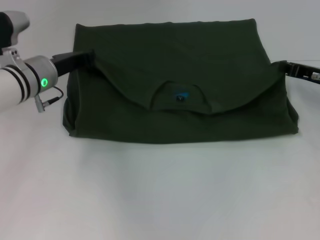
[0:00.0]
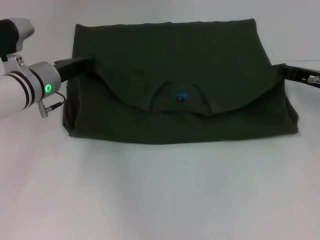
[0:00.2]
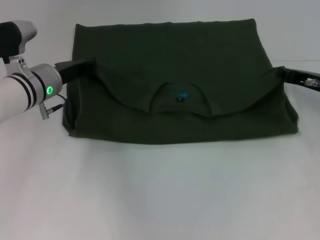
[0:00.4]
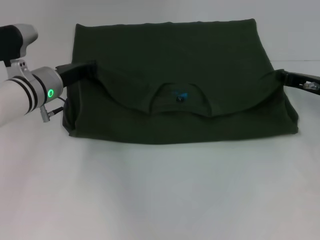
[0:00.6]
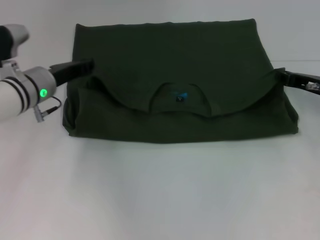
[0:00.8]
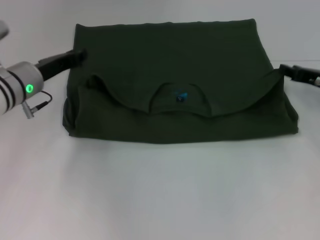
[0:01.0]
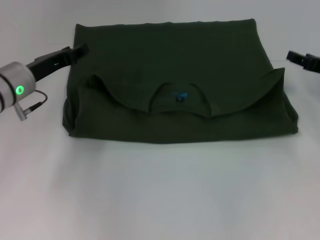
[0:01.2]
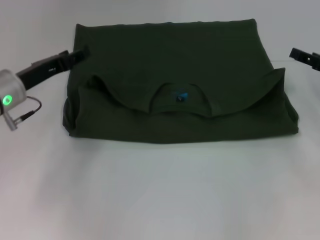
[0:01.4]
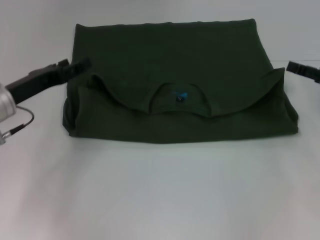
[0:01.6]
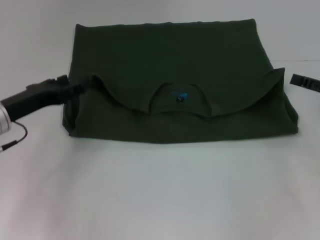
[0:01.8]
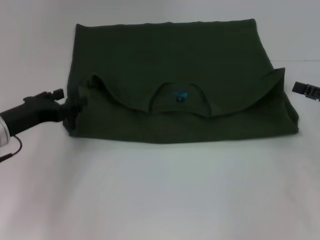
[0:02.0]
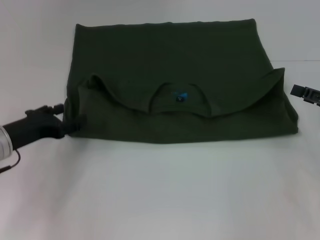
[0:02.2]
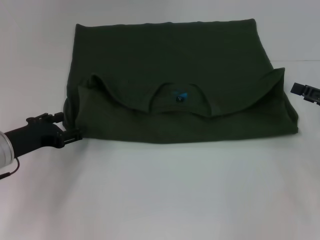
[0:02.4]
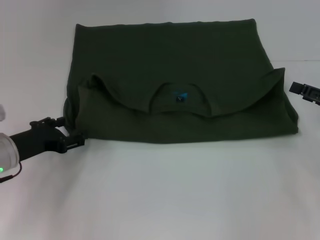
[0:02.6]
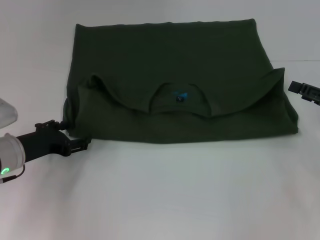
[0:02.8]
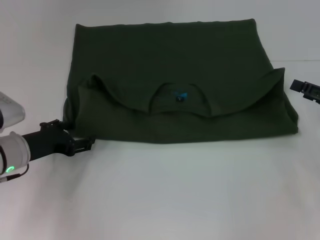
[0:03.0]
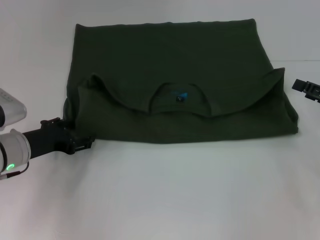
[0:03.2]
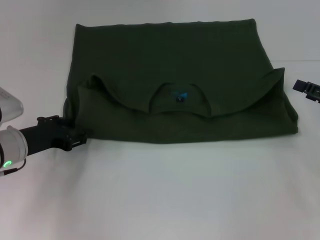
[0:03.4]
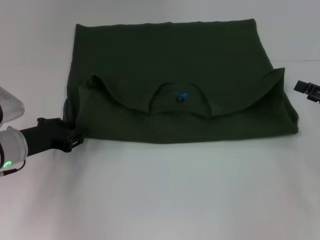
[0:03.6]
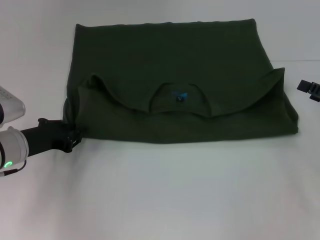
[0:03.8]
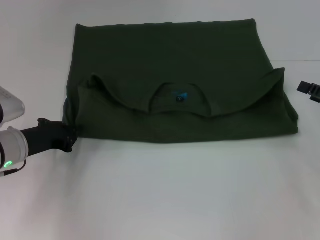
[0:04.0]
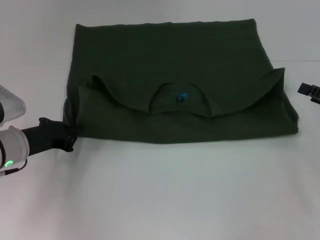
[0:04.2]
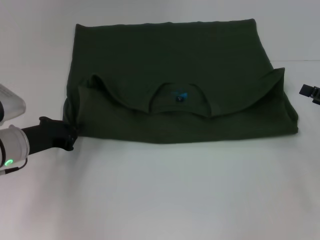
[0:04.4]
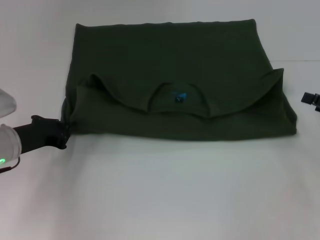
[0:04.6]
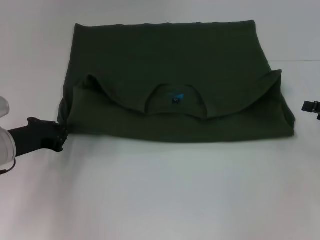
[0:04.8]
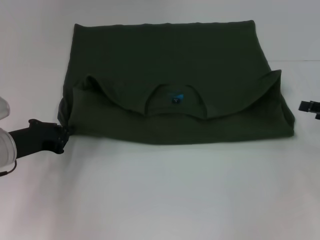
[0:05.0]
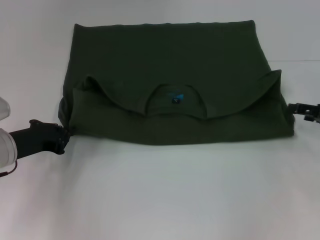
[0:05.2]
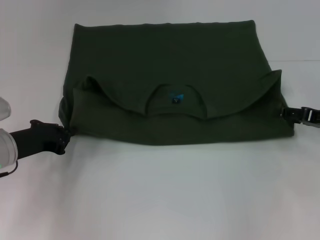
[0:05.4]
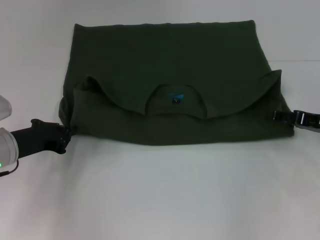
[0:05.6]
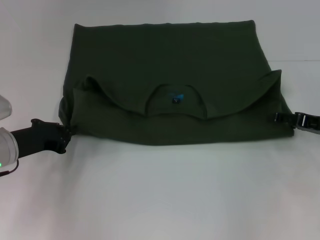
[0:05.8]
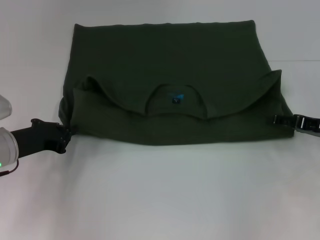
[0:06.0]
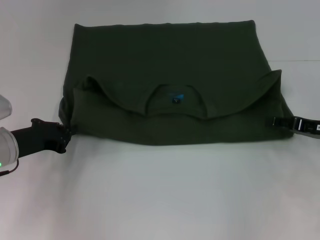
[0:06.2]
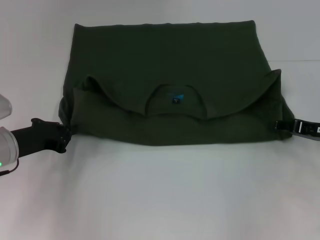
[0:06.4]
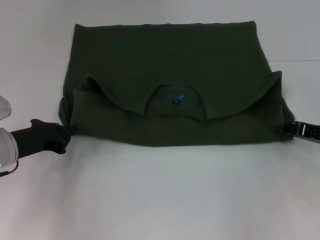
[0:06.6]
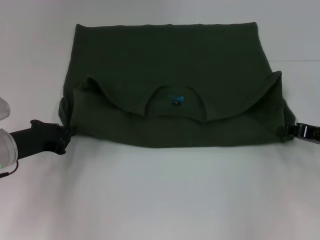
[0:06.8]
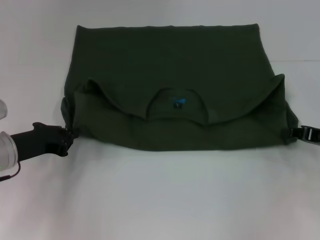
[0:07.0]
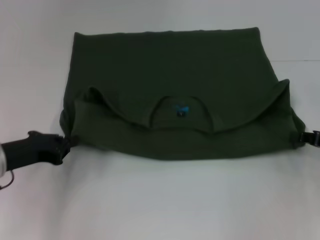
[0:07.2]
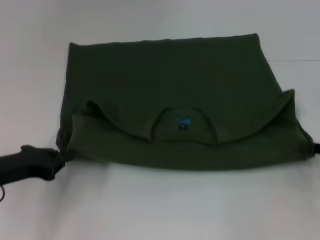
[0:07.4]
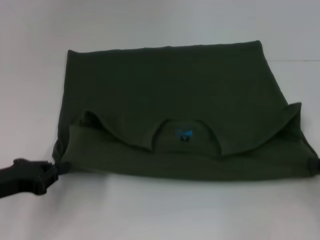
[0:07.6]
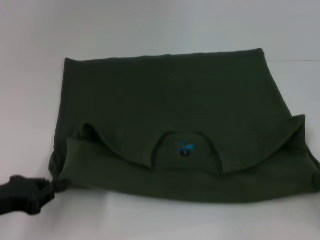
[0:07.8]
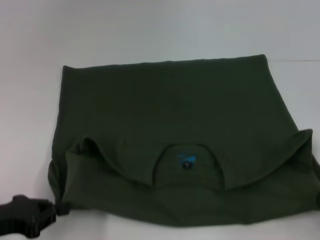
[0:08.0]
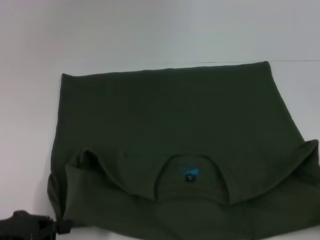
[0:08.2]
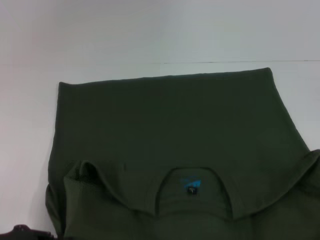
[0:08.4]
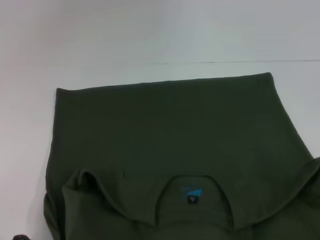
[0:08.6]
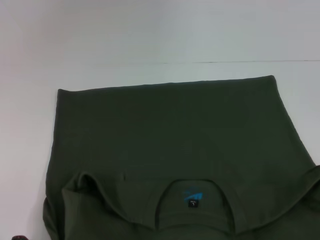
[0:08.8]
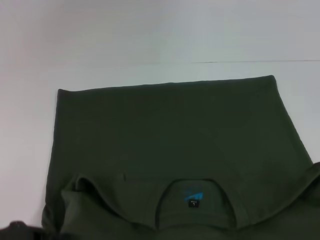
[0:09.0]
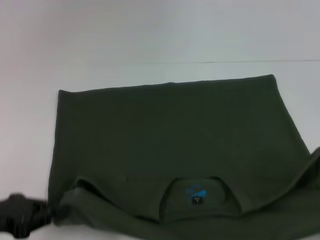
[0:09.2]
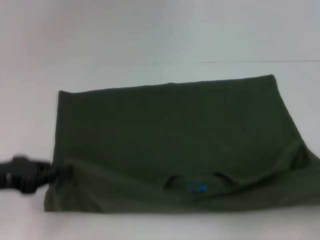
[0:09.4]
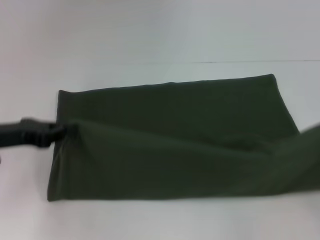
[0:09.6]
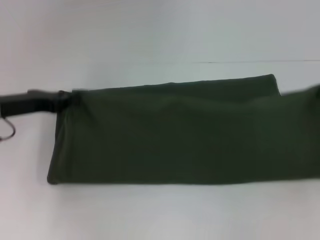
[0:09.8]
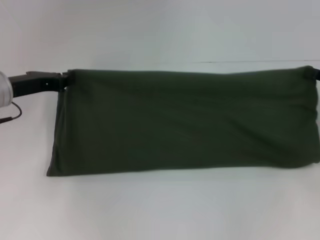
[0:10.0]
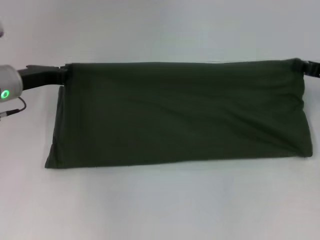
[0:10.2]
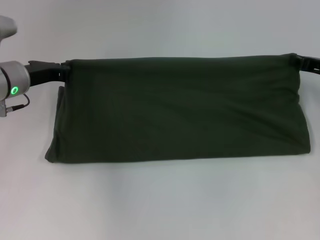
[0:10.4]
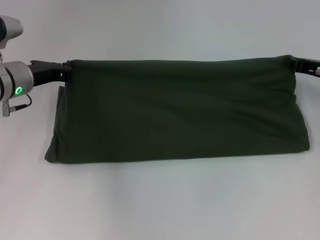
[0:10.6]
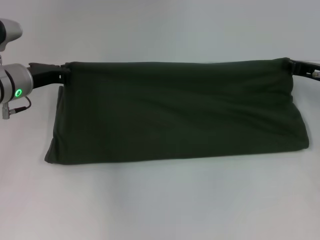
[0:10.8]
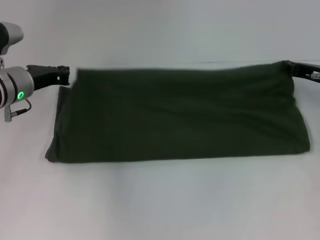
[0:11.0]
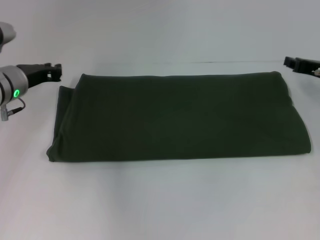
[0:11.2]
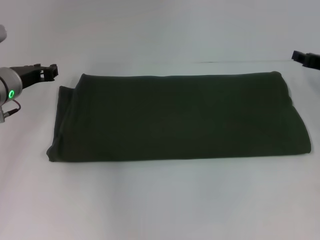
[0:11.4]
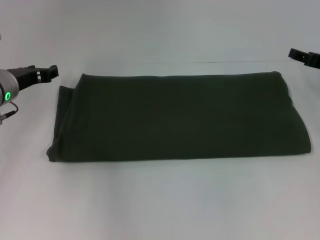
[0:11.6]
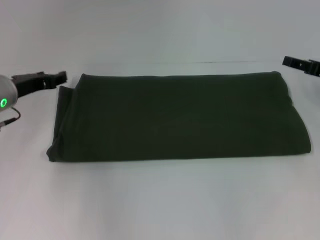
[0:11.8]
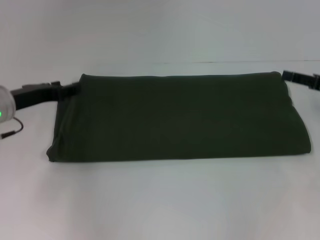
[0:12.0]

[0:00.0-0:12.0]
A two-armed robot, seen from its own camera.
Step, 0:01.2 to 0:08.6: Pull the clothes with your left hand.
Step, 0:01.2 to 0:08.6: Pull the clothes with your right hand.
Step, 0:08.8 to 0:11.2: Fold the clothes with your right hand.
0:00.0 to 0:01.6: The left gripper is displaced backward and to the left by approximately 10 cm, and opens up. Meanwhile the right gripper travels backward by approximately 5 cm, and opens its fingers.
0:01.6 to 0:03.0: The left gripper shifts some 5 cm downward.
0:03.0 to 0:04.4: The left gripper closes its fingers.
0:04.4 to 0:06.0: The right gripper moves about 5 cm.
0:06.0 to 0:07.6: The right gripper moves backward and to the right, about 10 cm, and closes up. Meanwhile the left gripper moves backward, some 10 cm.
0:07.6 to 0:09.0: The right gripper travels backward by some 15 cm. Meanwhile the left gripper is displaced backward by roughly 5 cm.
0:09.0 to 0:10.4: The two grippers go approximately 25 cm forward.
0:10.4 to 0:12.0: The right gripper ends up roughly 5 cm from where it was, and opens its fingers, while the left gripper ends up about 5 cm from where it was, and opens.

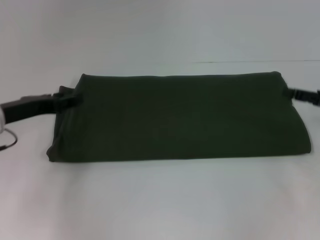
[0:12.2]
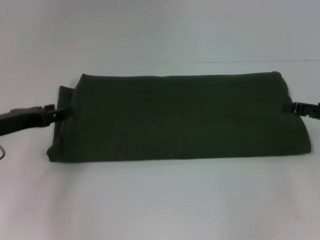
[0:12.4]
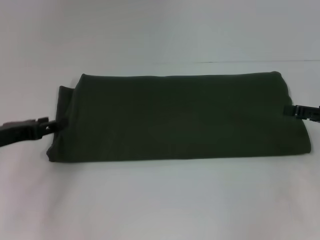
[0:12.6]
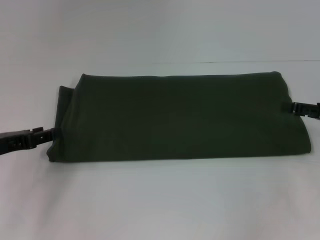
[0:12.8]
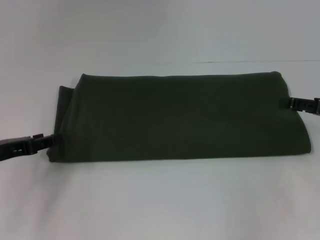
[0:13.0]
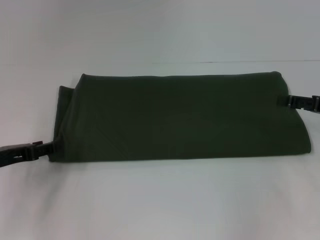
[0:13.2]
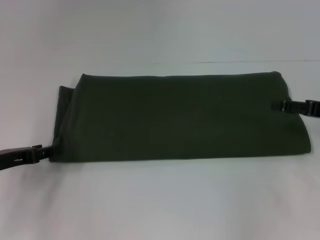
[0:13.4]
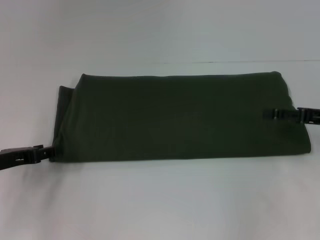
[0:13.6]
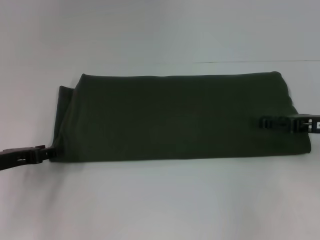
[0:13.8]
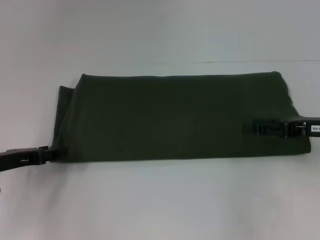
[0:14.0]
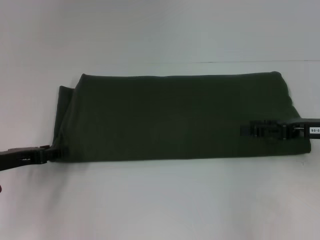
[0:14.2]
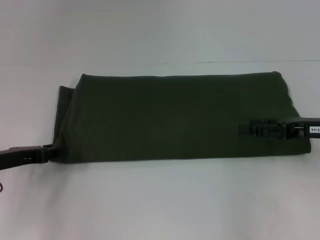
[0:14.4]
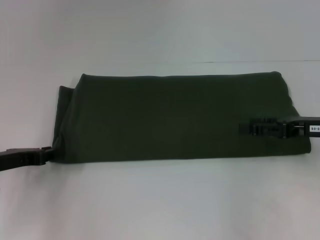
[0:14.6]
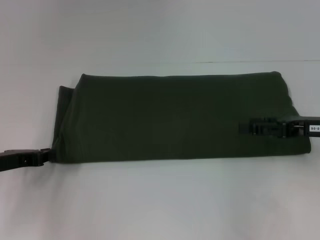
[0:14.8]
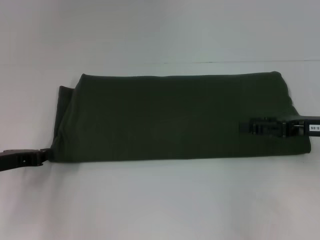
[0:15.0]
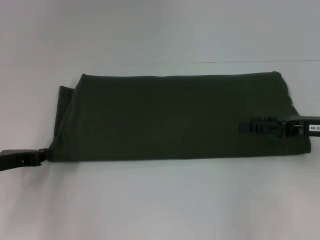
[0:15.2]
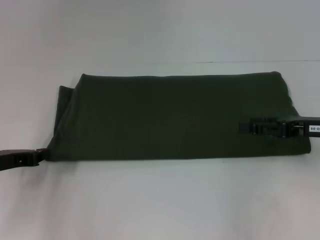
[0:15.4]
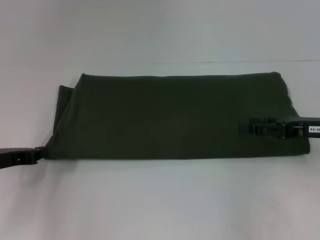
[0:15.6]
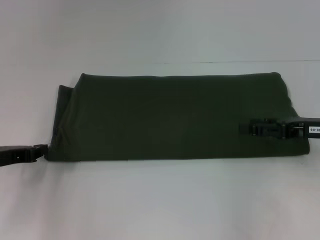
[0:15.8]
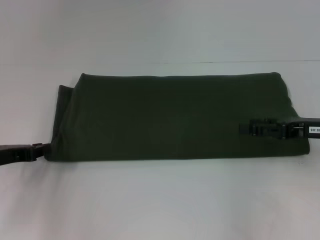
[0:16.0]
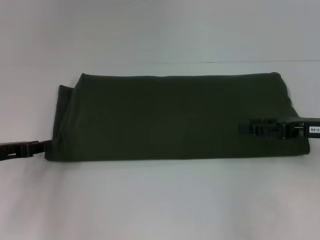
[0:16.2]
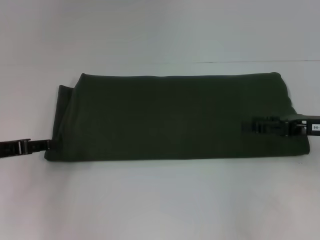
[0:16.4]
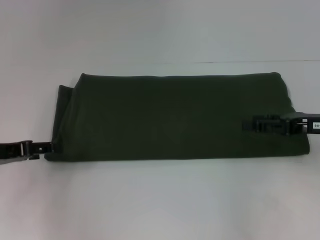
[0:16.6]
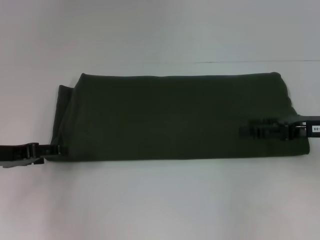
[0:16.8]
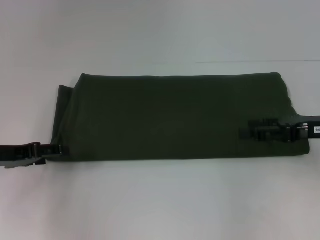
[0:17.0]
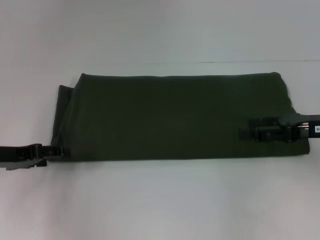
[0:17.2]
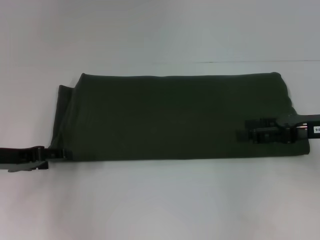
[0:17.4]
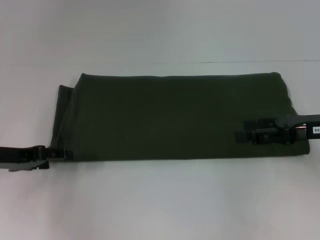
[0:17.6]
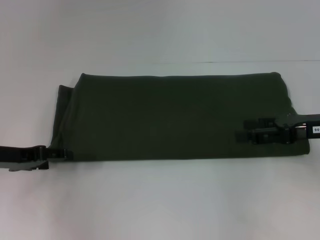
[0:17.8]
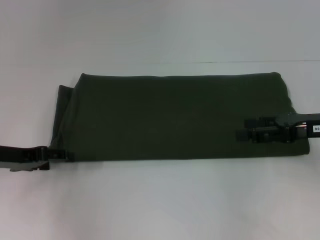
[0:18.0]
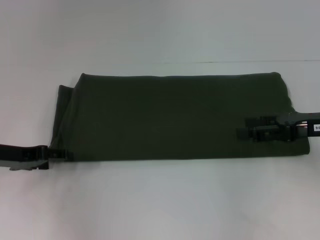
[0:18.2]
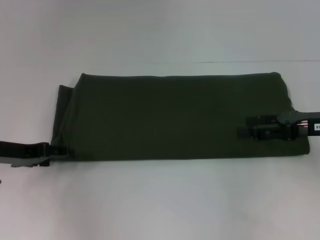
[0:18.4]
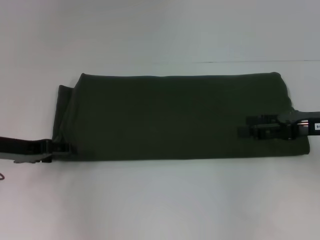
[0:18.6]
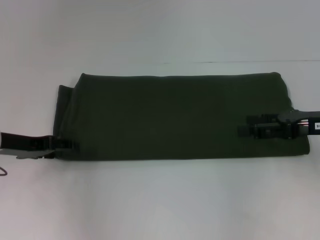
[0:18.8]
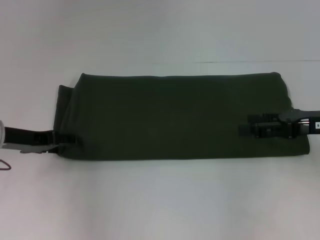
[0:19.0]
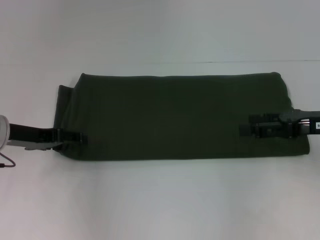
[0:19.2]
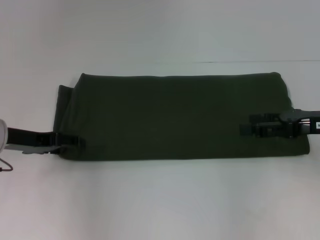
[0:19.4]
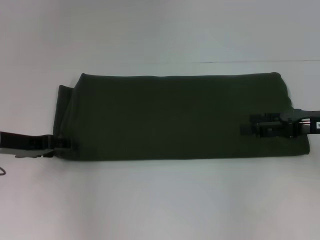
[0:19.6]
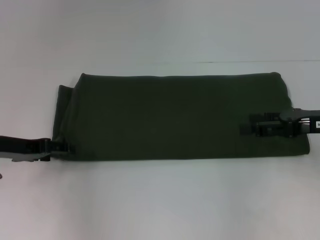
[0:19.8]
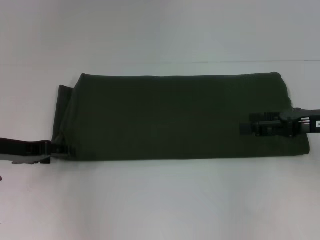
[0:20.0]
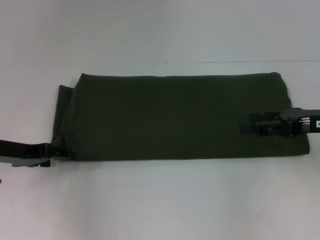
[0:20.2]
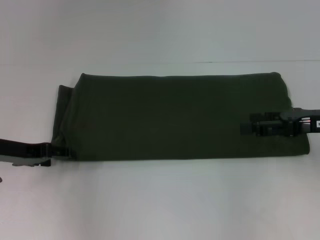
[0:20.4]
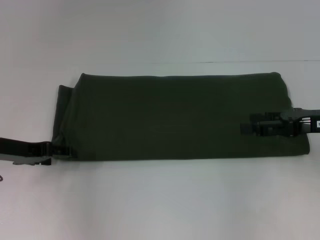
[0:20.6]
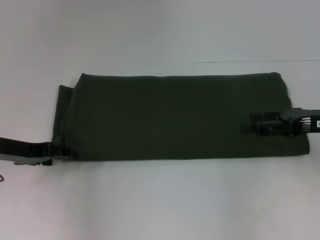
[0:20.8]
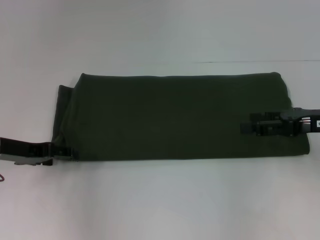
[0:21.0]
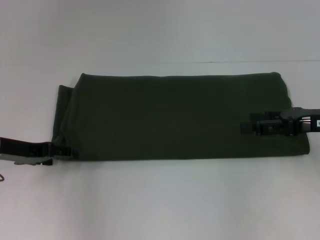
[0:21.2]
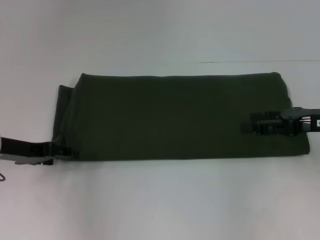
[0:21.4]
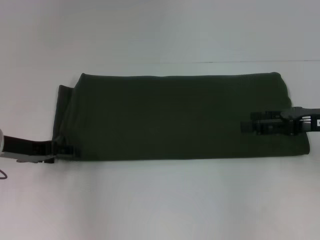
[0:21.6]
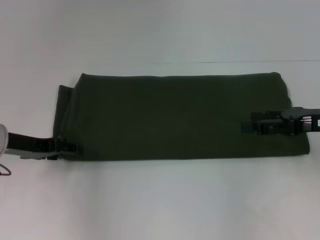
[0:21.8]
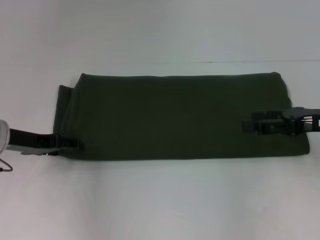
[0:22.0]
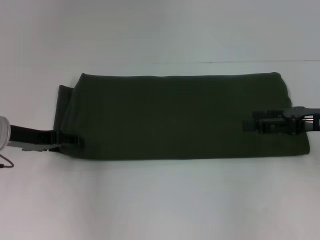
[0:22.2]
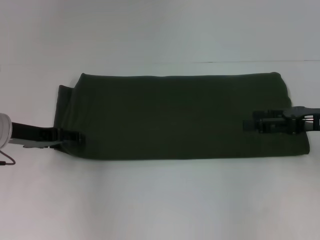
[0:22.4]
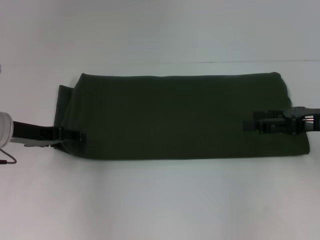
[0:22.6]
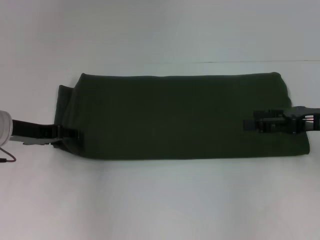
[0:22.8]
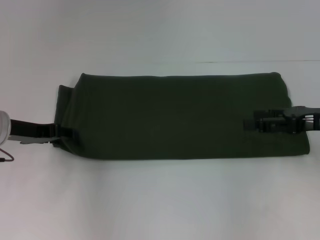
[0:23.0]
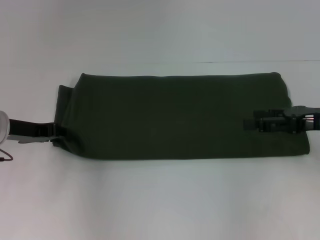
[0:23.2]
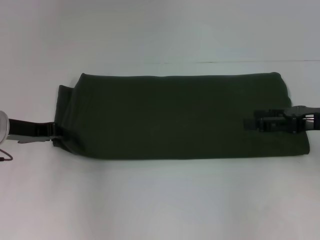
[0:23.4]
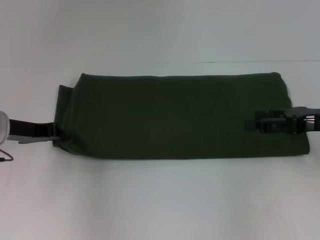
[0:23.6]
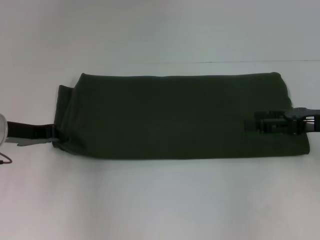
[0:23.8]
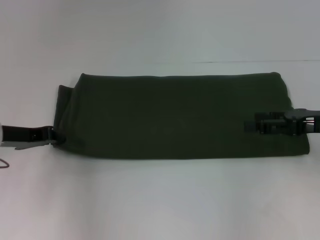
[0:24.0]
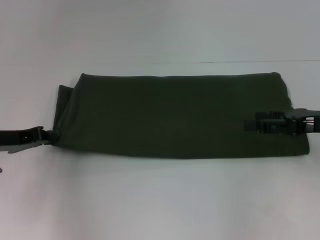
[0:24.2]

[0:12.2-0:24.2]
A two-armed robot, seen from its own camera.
0:12.2 to 0:13.8: The left gripper ends up roughly 5 cm from where it was.
0:15.2 to 0:16.6: The left gripper opens.
0:16.6 to 0:19.8: The grippers move only a little.
0:19.8 to 0:21.2: Neither gripper changes place.
0:21.2 to 0:22.6: There are only small adjustments of the grippers.
0:22.6 to 0:24.2: The left gripper closes up.
